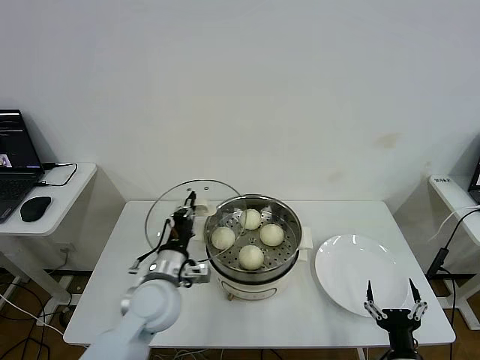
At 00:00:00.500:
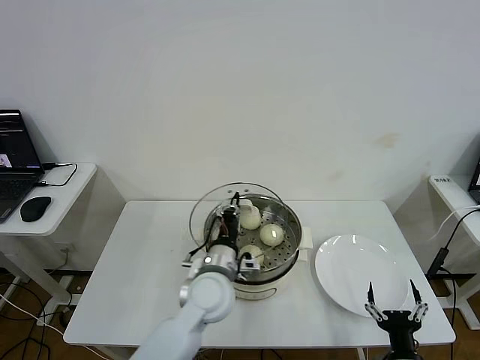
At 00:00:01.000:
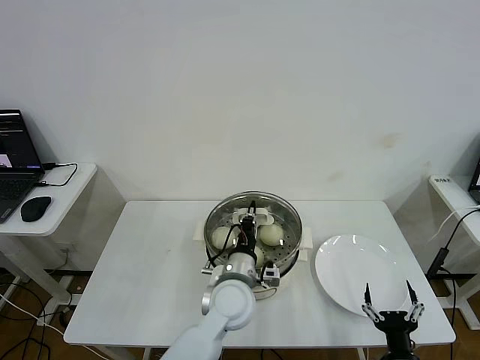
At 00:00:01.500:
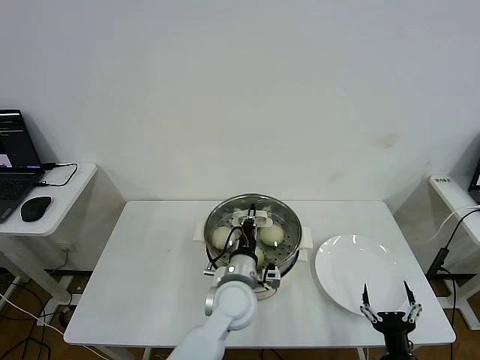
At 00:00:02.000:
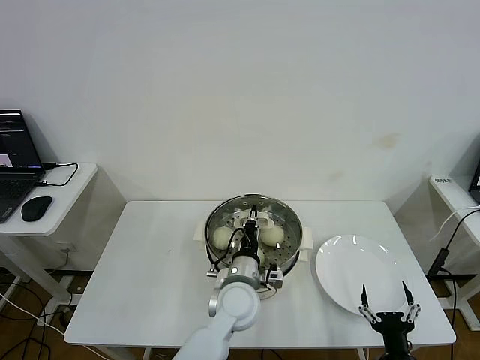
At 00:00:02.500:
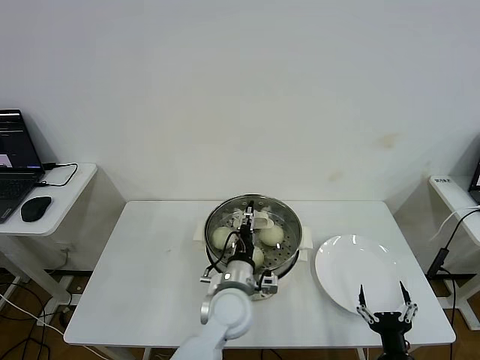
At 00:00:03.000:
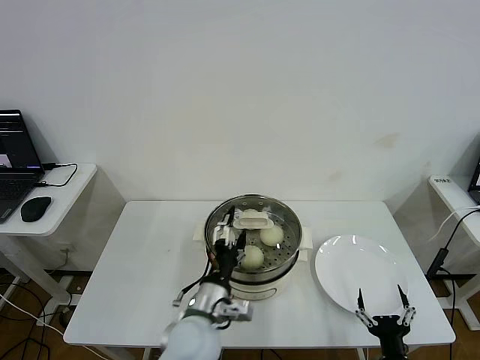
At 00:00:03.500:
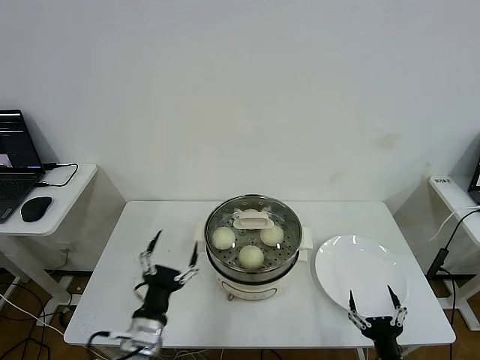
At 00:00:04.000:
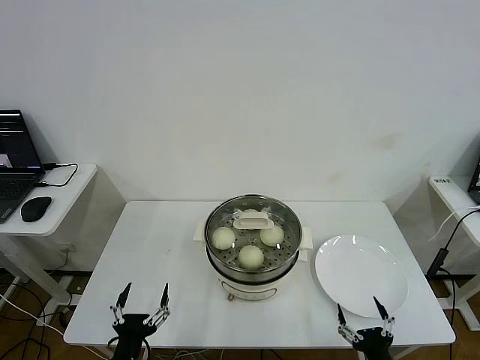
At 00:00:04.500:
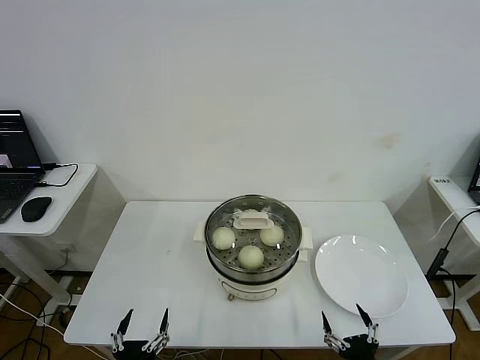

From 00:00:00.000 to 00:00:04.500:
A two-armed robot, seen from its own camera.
Step, from 00:00:00.000 to 00:00:02.000: Place the pot lid on the steamer with left gripper.
From 00:00:00.000 to 00:00:02.000: The left gripper goes approximately 15 cm to the right.
From 00:00:02.000 to 00:00:04.500: The left gripper is displaced backward and to the left by roughly 35 cm, and opens up.
